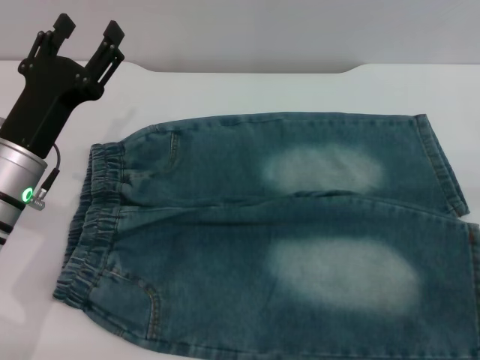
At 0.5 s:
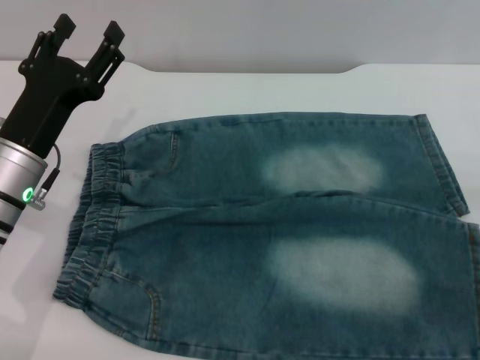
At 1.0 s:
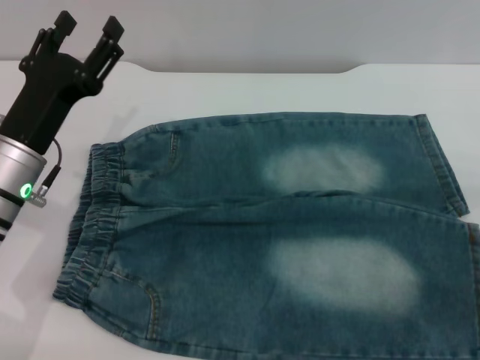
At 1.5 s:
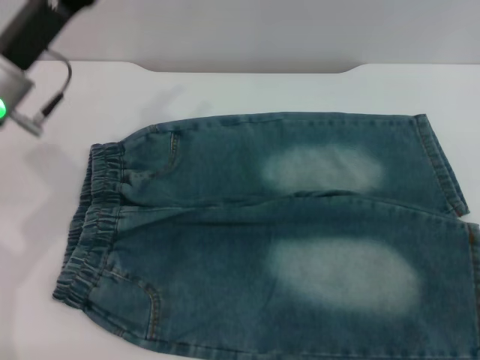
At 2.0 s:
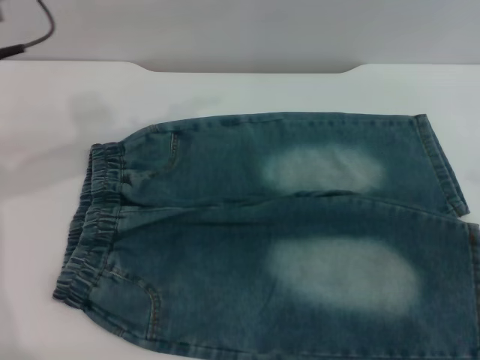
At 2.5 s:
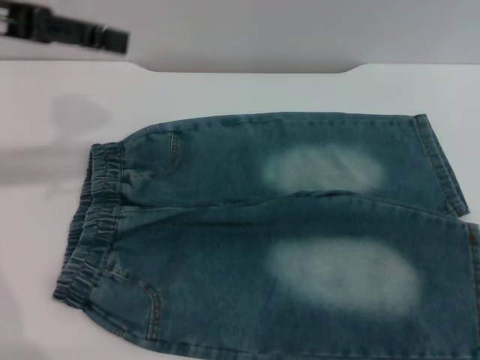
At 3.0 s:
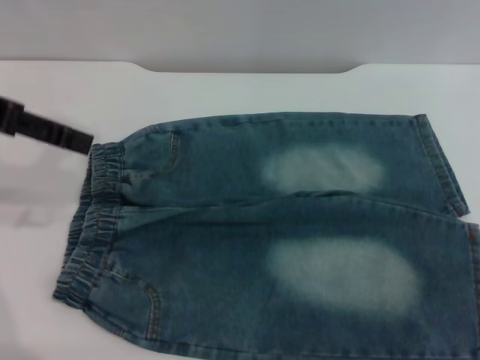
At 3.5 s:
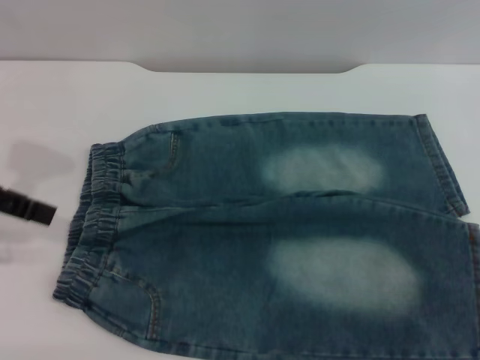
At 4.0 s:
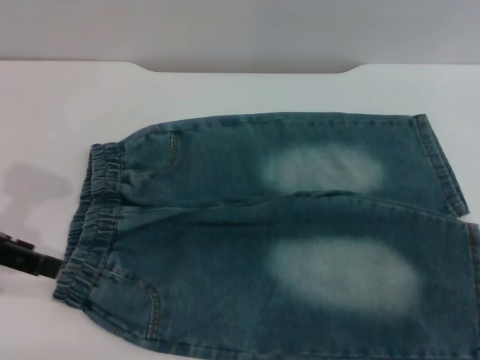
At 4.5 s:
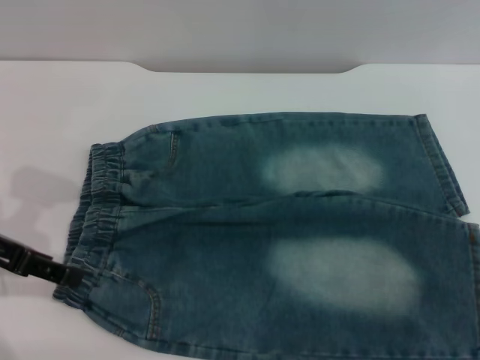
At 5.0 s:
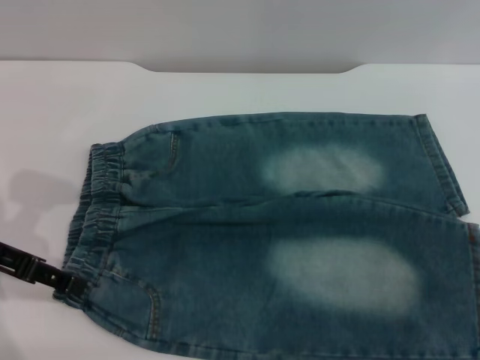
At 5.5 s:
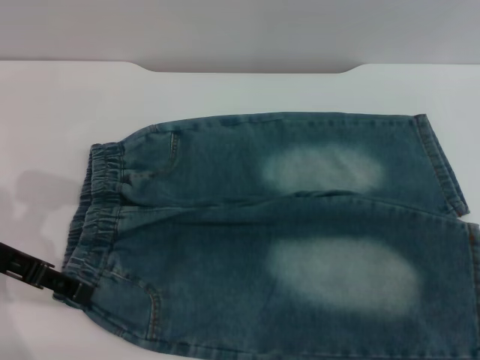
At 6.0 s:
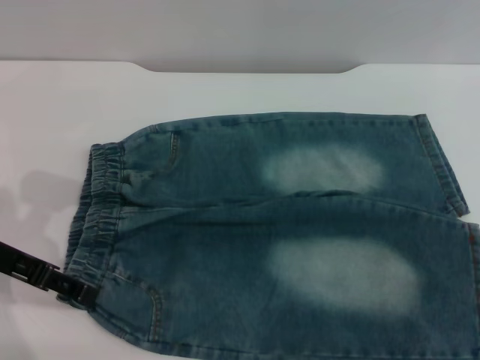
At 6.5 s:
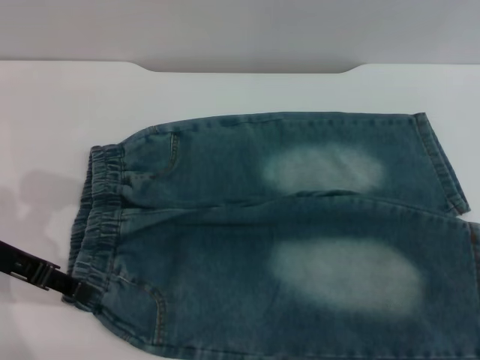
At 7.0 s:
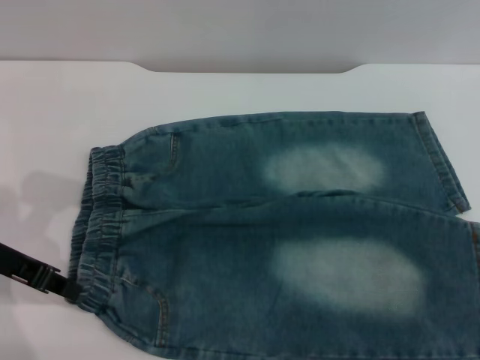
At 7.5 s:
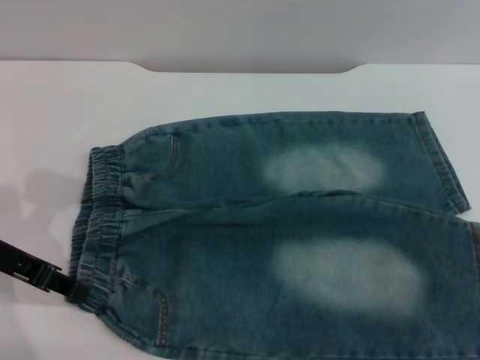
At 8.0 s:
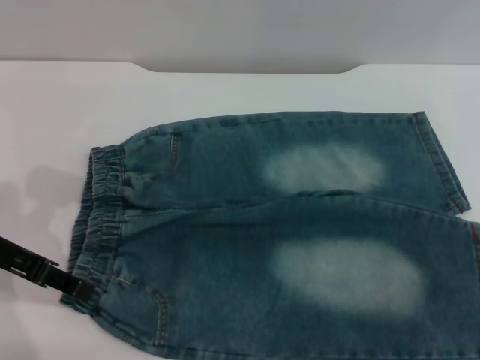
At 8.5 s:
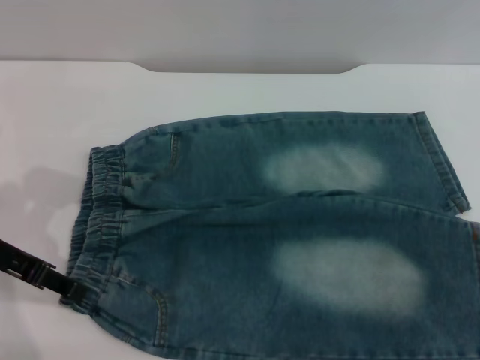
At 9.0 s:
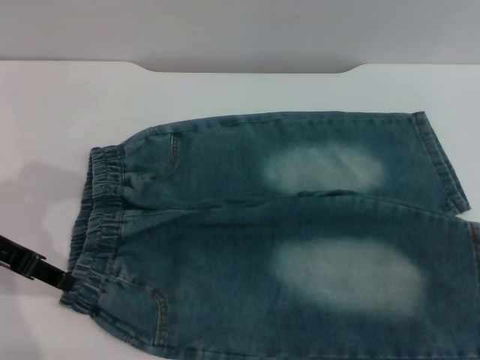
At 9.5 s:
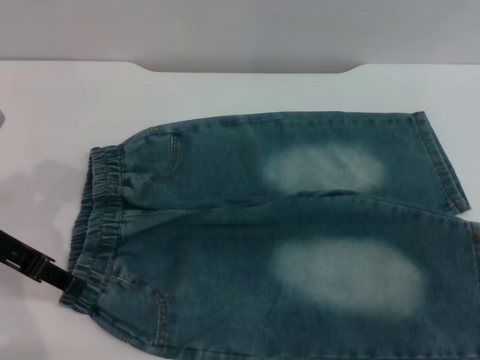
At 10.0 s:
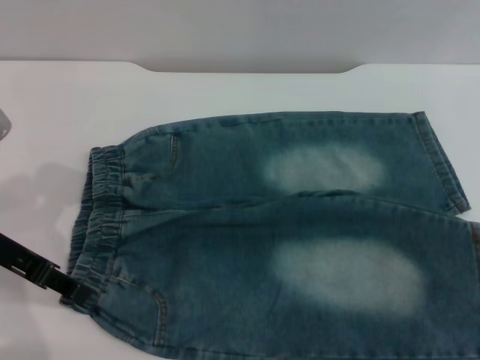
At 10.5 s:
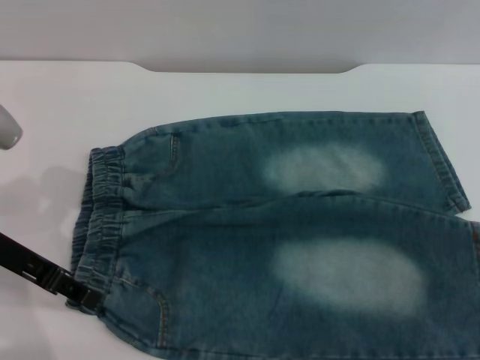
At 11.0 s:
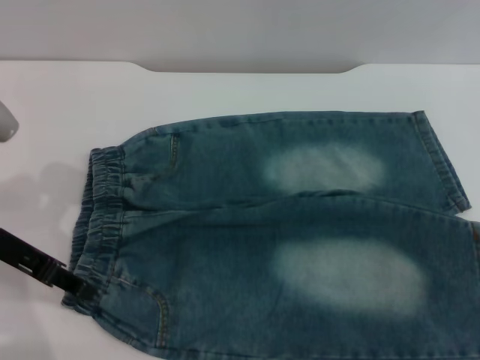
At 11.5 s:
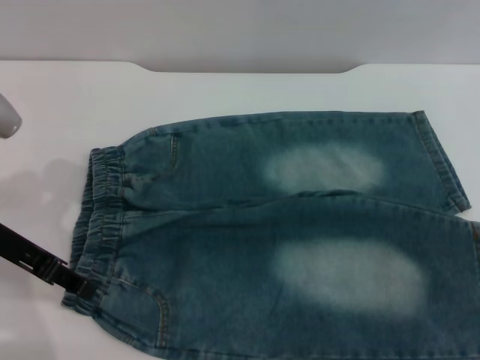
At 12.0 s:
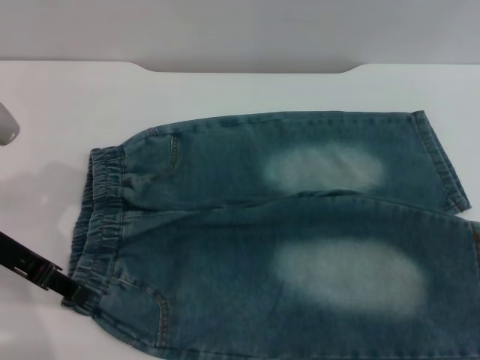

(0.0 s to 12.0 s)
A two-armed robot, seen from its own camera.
0.0 s - 2.0 s: The left gripper shifts roughly 20 cm upward and forward.
2.0 s - 4.0 s: The left gripper travels backward, to the left and downward by about 15 cm.
4.0 s - 6.0 s: The left gripper shifts some 5 cm downward.
6.0 s - 8.0 s: The left gripper closes, then reopens.
10.0 s - 12.0 s: The two grippers keep their place.

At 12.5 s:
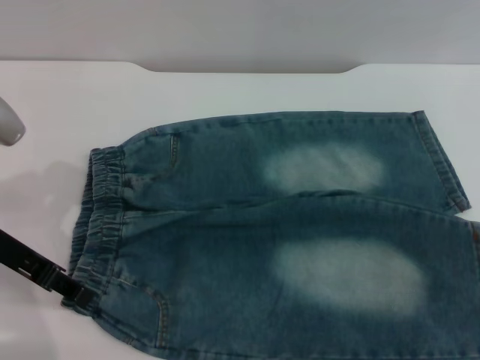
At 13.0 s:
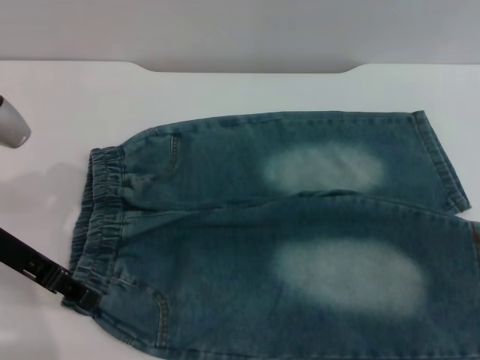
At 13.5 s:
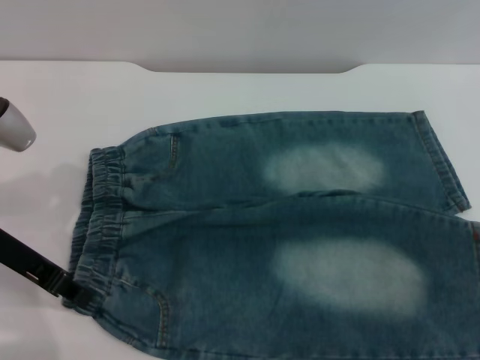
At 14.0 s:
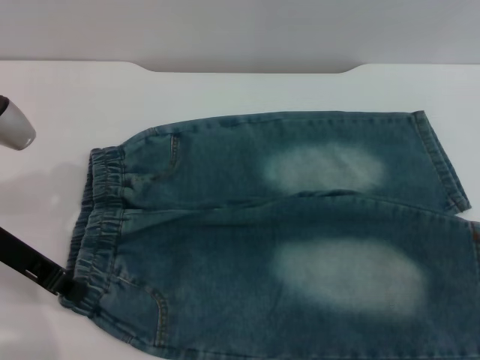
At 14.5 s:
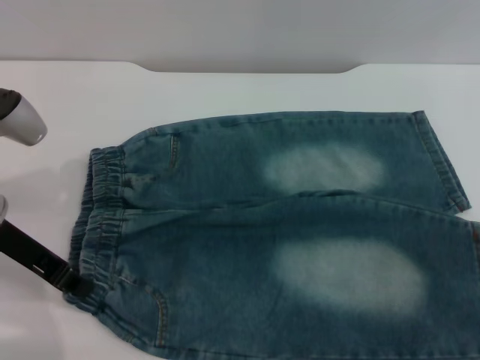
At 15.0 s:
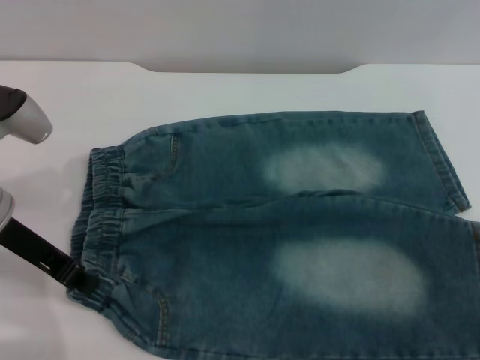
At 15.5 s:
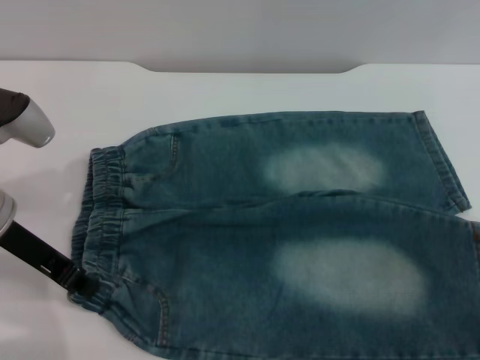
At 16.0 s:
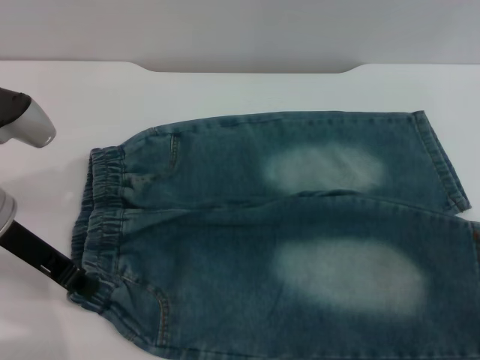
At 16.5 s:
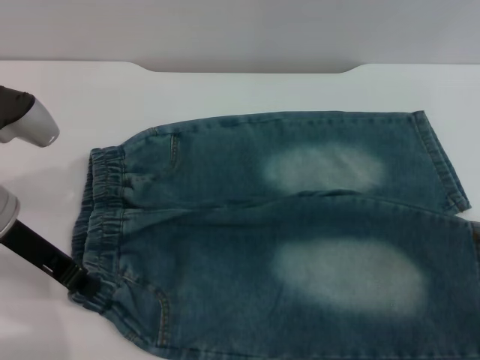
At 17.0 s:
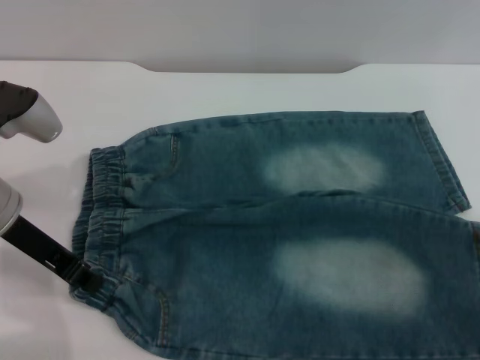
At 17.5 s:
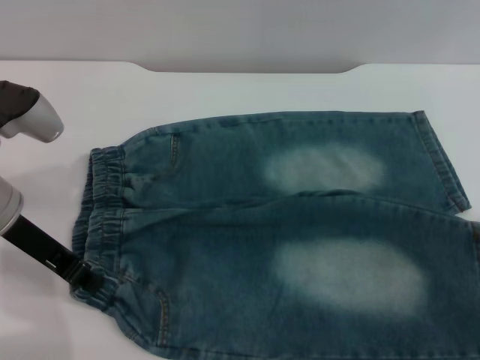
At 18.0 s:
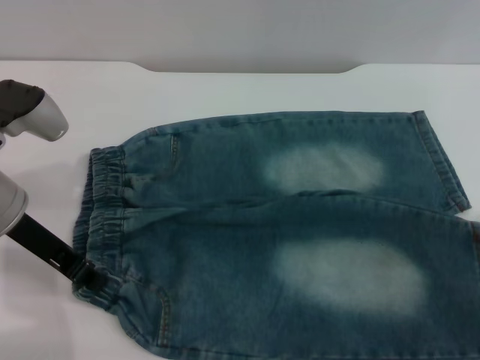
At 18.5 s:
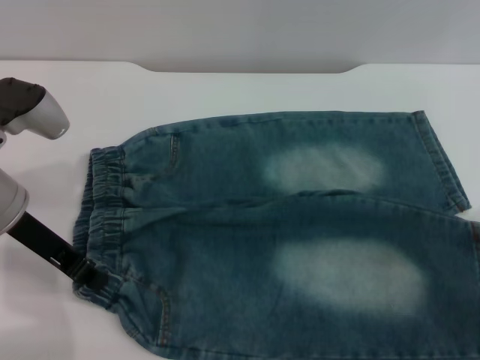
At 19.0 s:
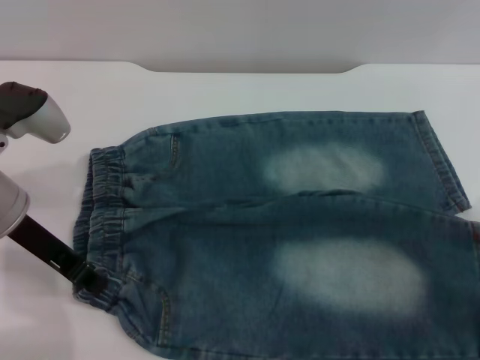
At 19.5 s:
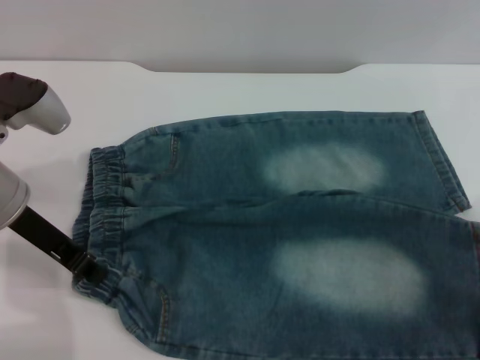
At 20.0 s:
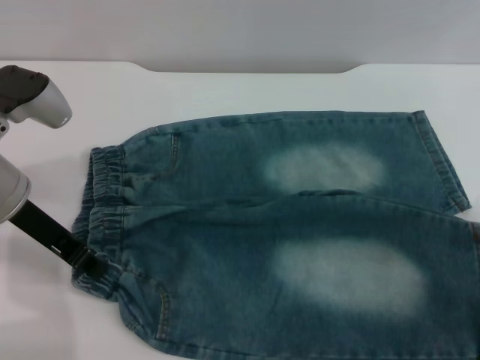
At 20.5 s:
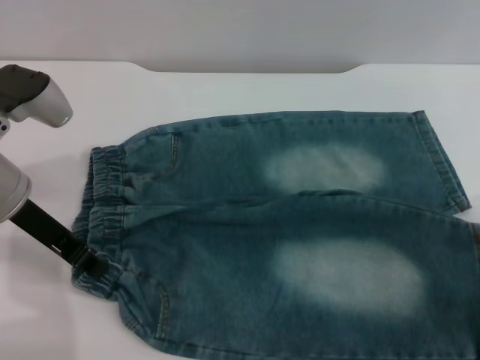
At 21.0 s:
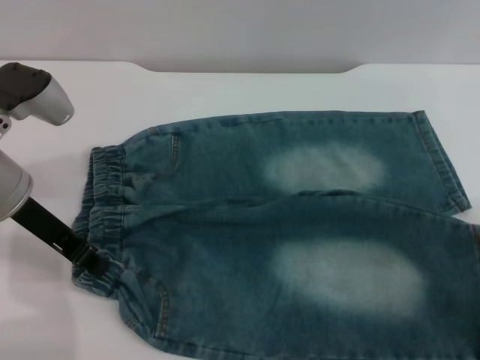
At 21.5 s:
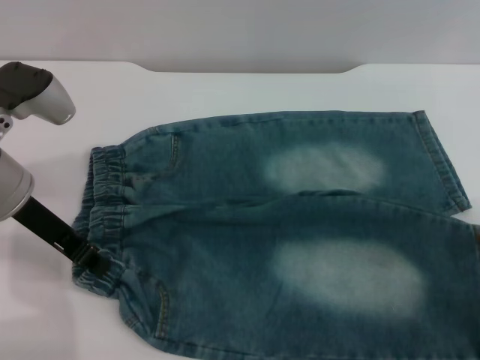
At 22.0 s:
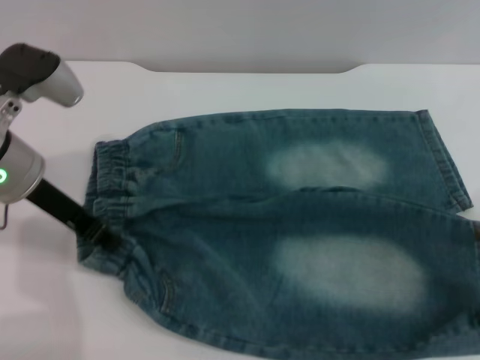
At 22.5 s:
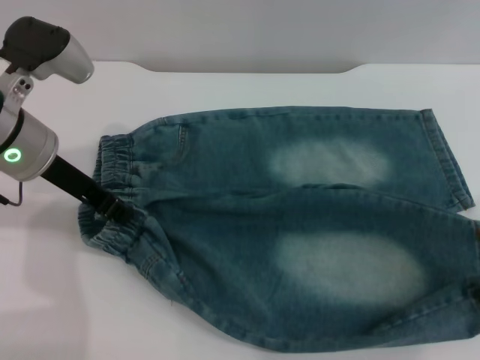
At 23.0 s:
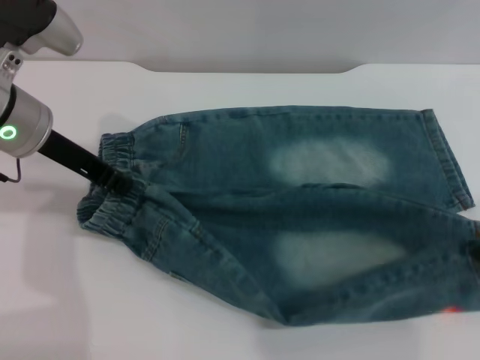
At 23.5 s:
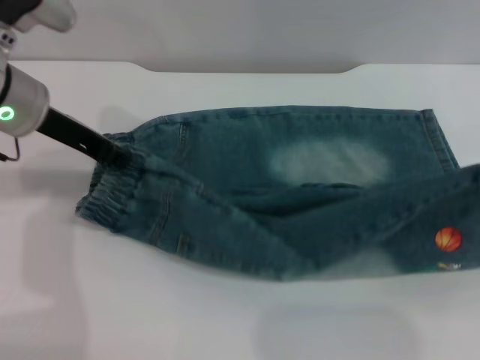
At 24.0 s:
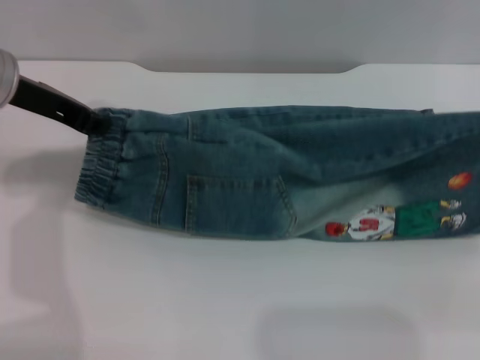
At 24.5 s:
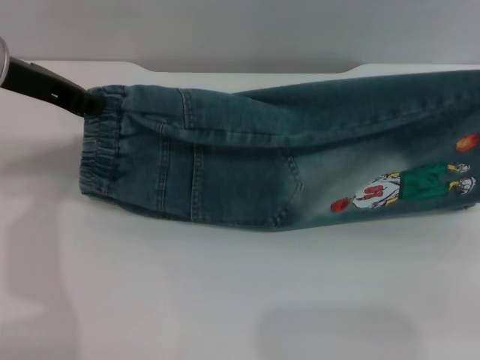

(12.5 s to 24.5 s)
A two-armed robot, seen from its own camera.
12.5 s - 14.5 s: The left gripper closes its fingers.
14.5 s - 16.5 s: The grippers make only small movements.
16.5 s - 18.5 s: The grippers move only a little.
18.5 s - 20.5 s: Both grippers stay about where they are.
20.5 s - 22.5 s: The right gripper closes.
22.5 s - 24.5 s: The left gripper heads upward, covering roughly 5 cm. Meanwhile the right gripper is displaced upward and to the right by about 10 cm.

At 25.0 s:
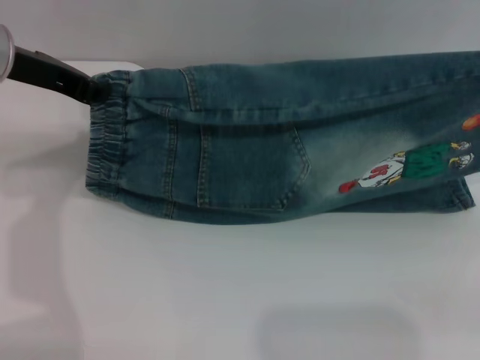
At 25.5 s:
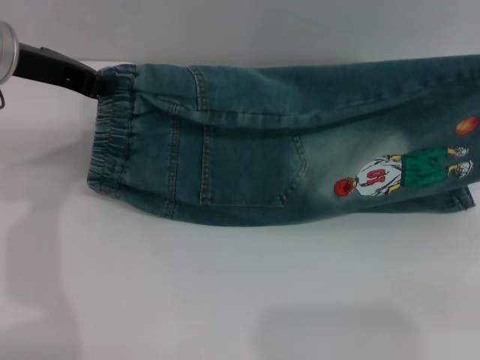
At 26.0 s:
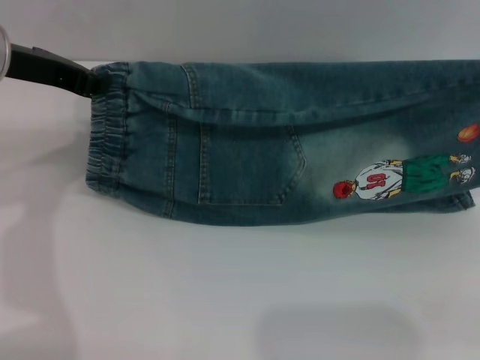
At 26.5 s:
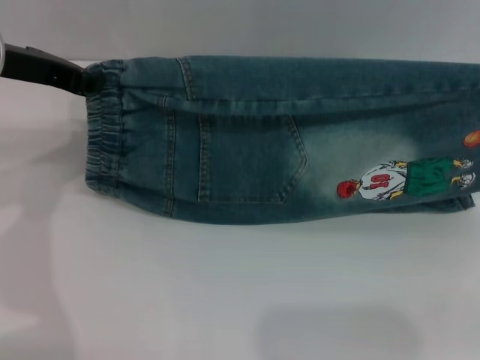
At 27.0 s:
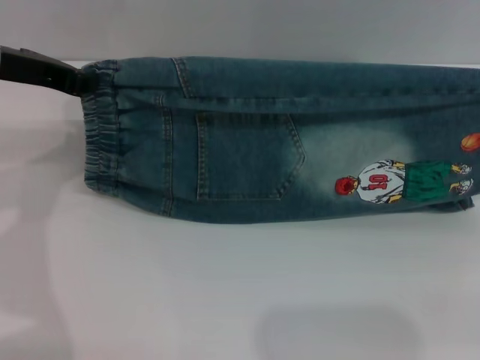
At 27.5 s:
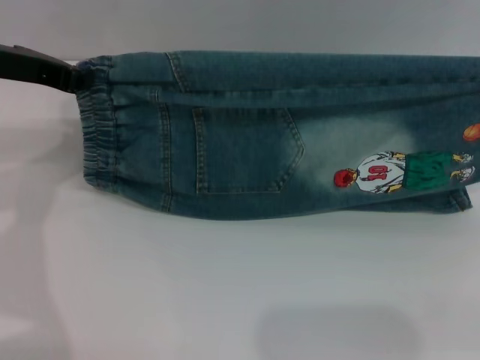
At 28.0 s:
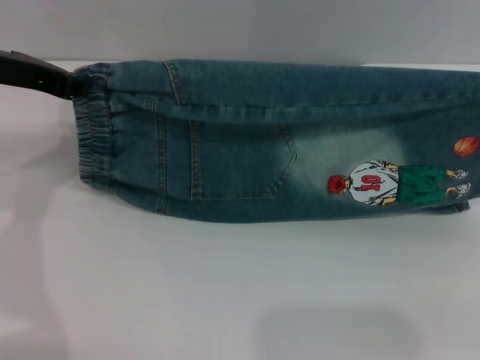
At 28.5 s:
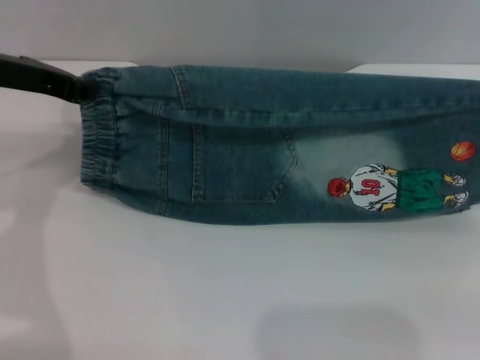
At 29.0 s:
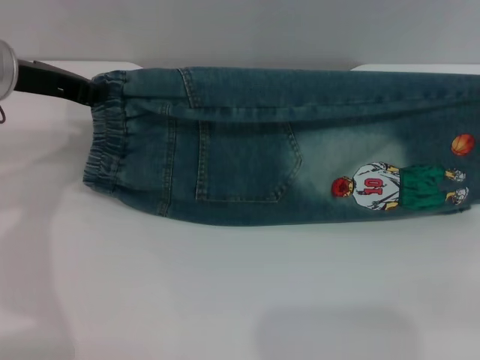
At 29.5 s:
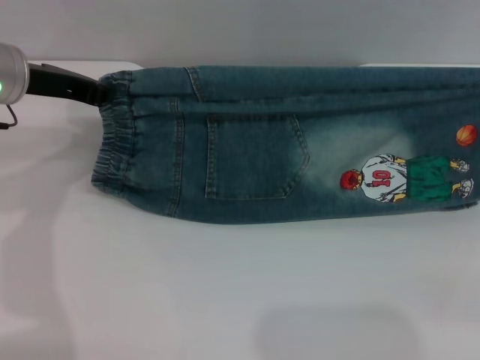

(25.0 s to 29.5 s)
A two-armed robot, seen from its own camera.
25.0 s - 27.0 s: There are only small adjustments of the grippers.
27.0 s - 29.5 s: The right gripper moves about 5 cm.
